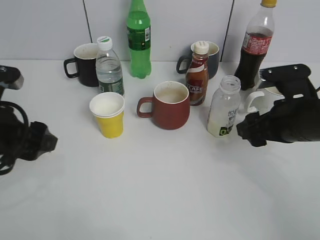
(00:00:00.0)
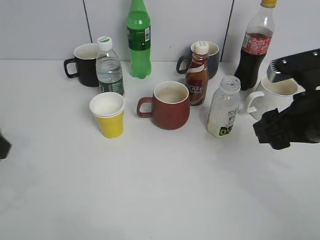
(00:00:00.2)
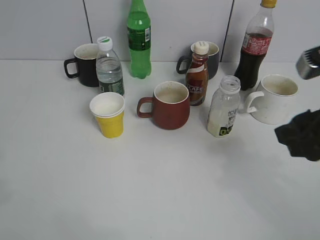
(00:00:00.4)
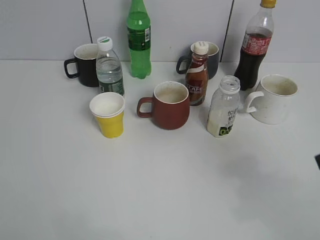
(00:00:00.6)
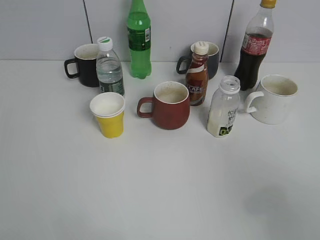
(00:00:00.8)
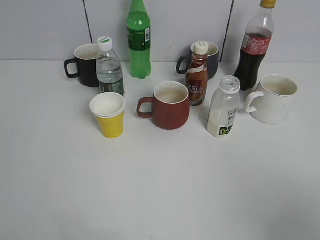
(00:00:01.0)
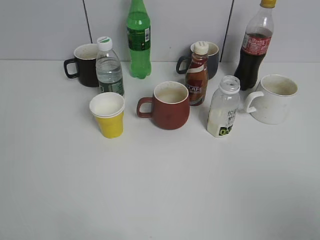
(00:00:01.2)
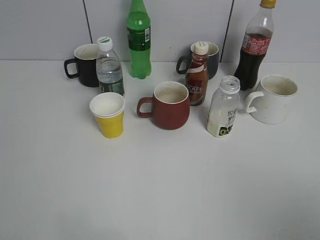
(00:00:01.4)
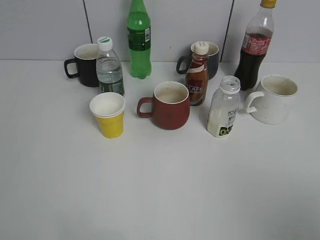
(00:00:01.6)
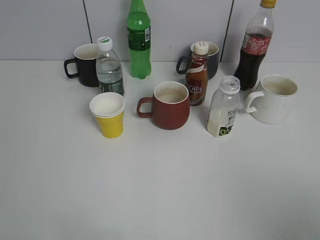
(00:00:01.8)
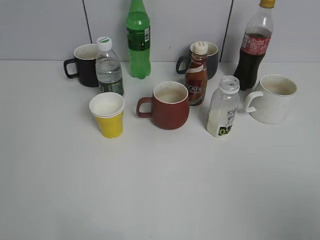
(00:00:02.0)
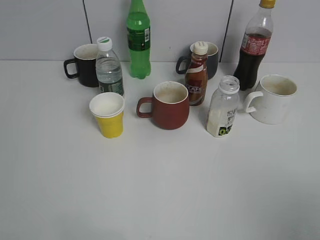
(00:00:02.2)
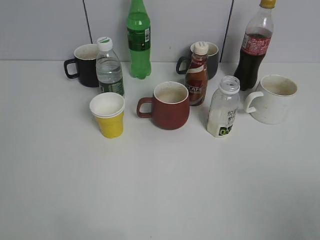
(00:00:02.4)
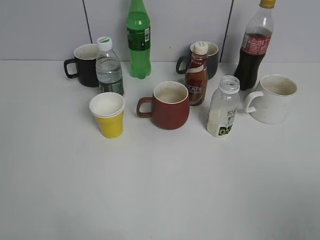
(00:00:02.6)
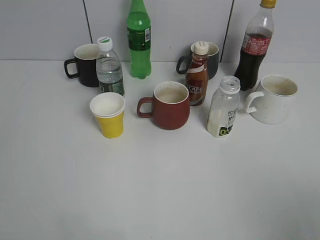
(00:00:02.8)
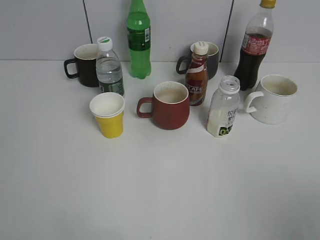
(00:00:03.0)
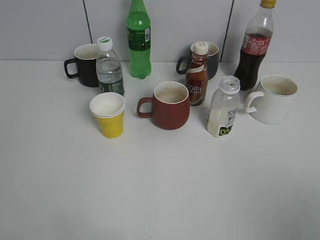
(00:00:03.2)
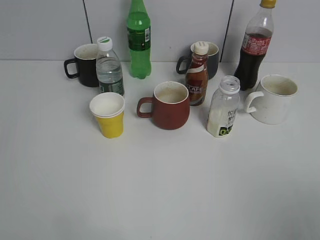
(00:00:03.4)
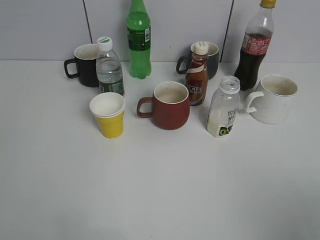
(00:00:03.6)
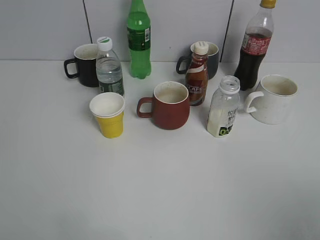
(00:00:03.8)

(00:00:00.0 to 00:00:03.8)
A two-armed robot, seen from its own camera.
00:00:00.0 - 00:00:01.2: The left gripper travels backward, upward and to the left by approximately 25 cm; the right gripper heads backward and upward, covering some 30 cm, and closes its fingers.
00:00:02.6 - 00:00:03.8: Both grippers stay about where they are.
